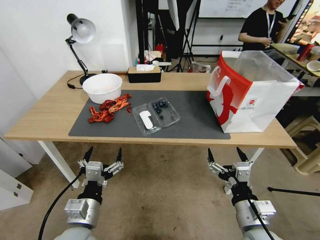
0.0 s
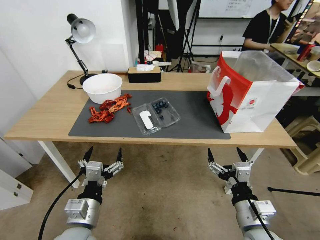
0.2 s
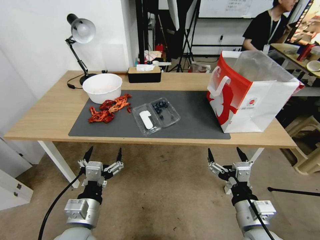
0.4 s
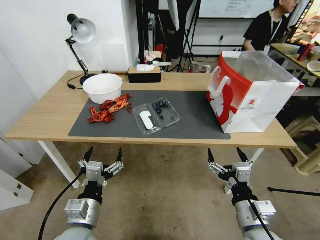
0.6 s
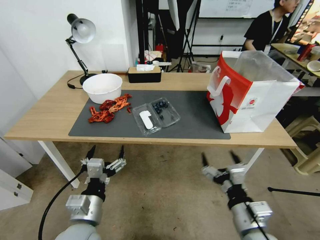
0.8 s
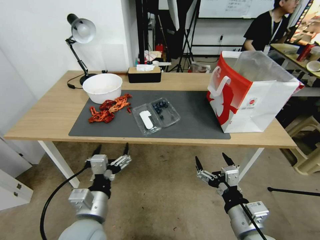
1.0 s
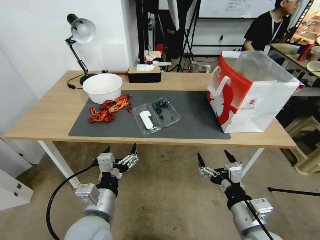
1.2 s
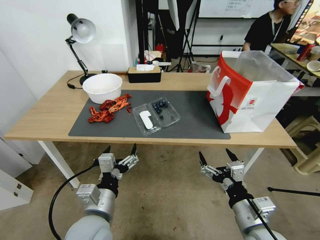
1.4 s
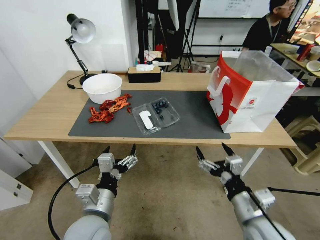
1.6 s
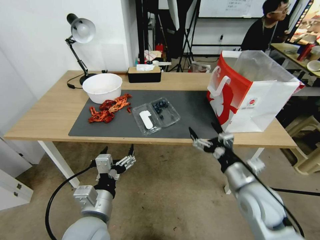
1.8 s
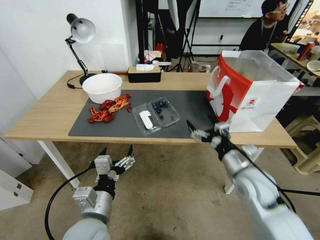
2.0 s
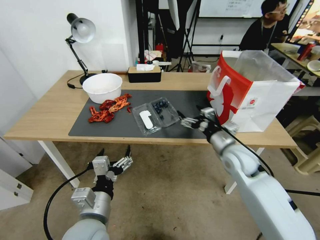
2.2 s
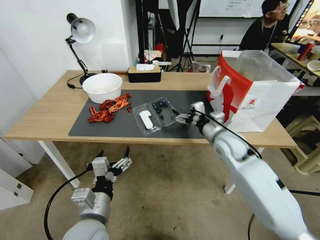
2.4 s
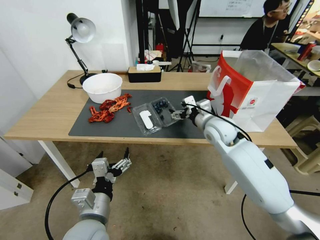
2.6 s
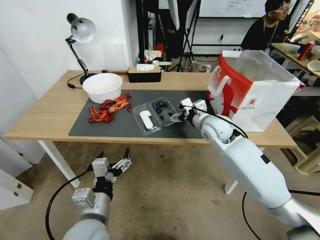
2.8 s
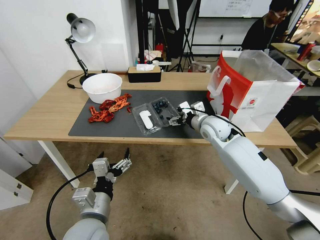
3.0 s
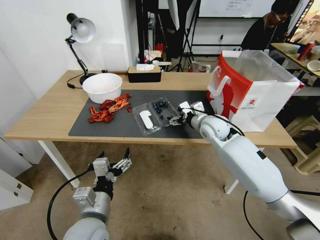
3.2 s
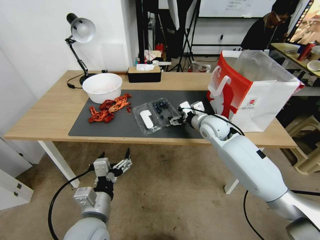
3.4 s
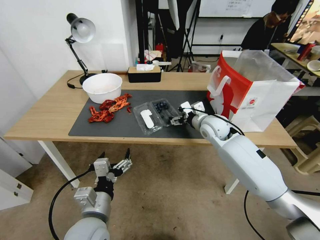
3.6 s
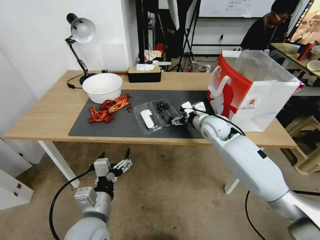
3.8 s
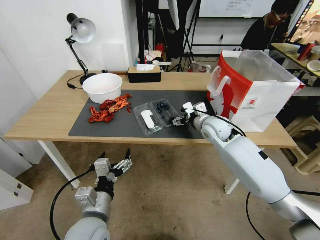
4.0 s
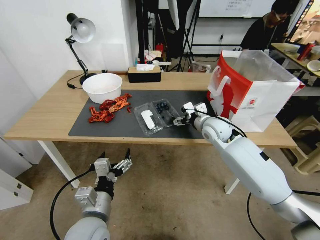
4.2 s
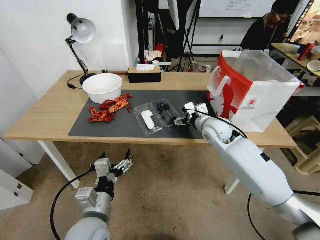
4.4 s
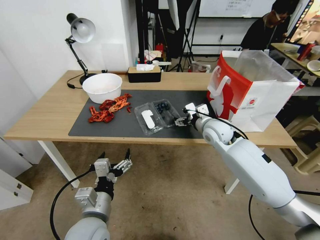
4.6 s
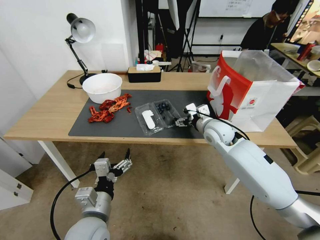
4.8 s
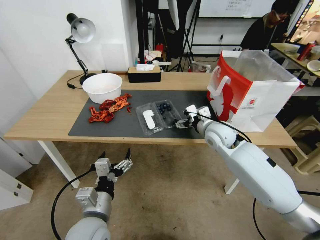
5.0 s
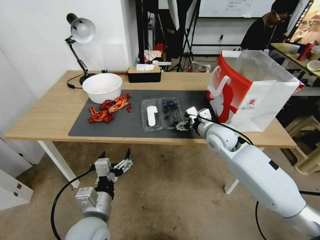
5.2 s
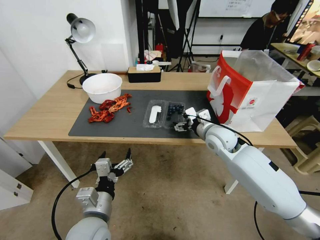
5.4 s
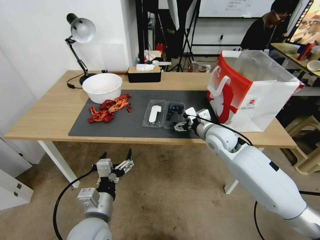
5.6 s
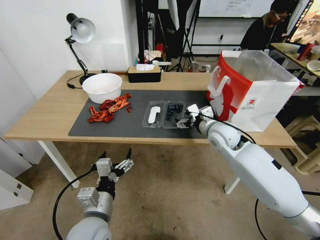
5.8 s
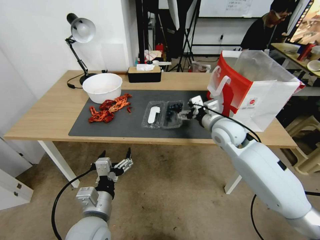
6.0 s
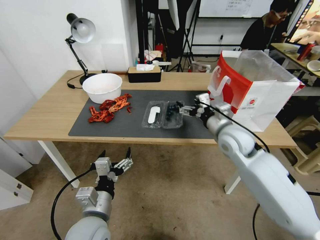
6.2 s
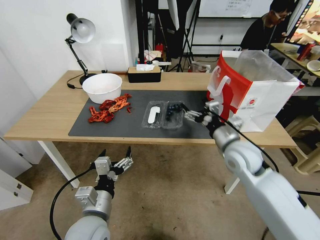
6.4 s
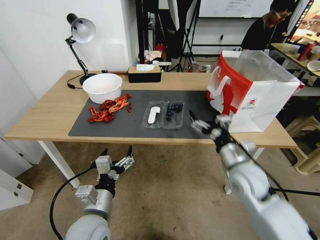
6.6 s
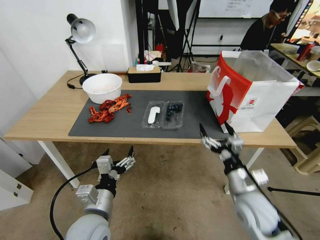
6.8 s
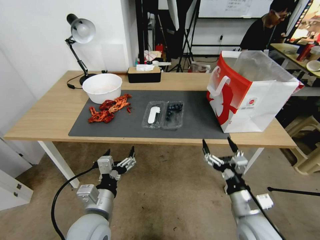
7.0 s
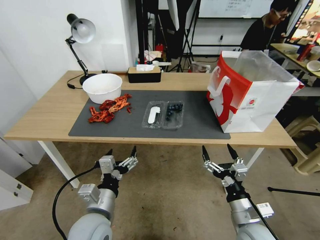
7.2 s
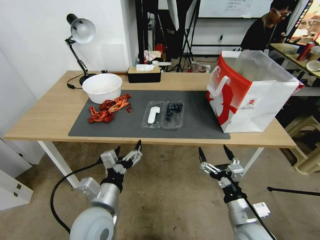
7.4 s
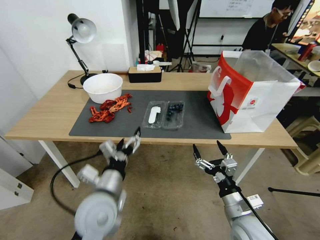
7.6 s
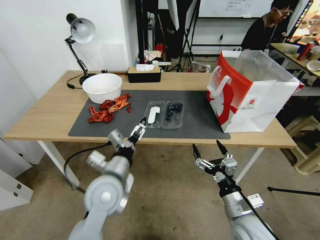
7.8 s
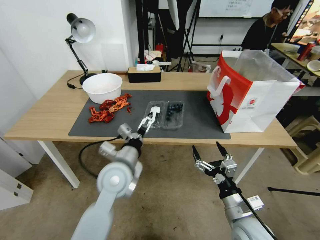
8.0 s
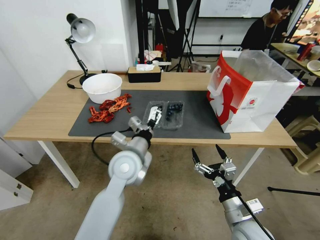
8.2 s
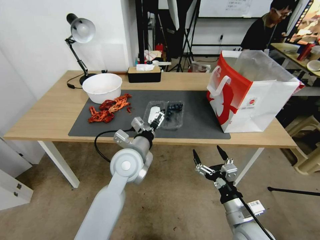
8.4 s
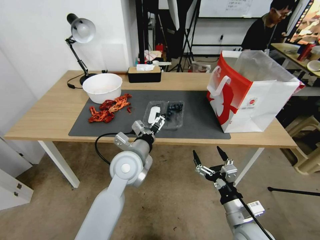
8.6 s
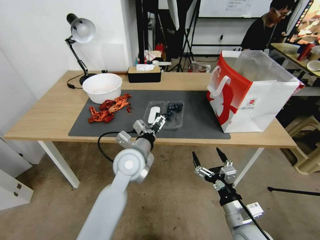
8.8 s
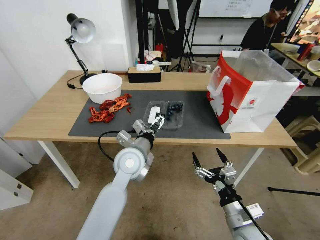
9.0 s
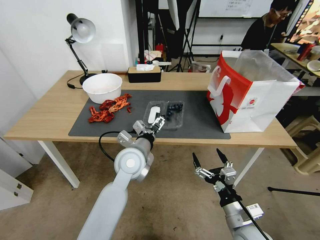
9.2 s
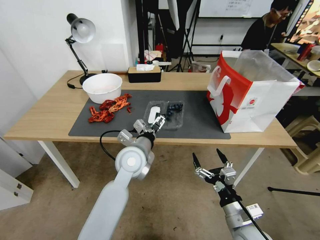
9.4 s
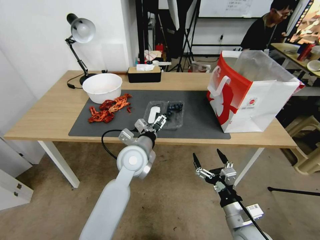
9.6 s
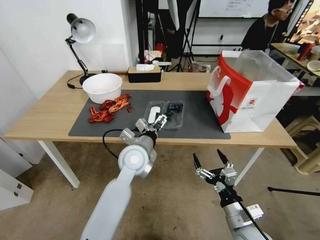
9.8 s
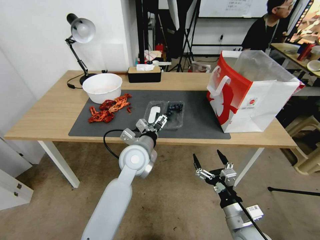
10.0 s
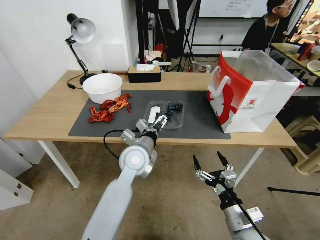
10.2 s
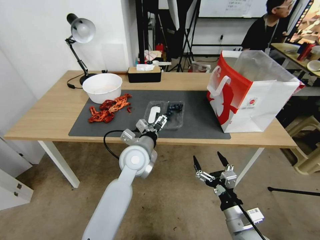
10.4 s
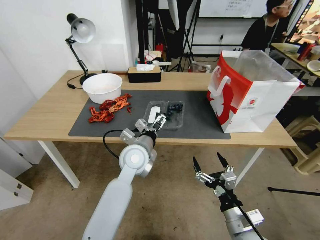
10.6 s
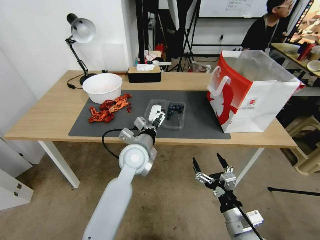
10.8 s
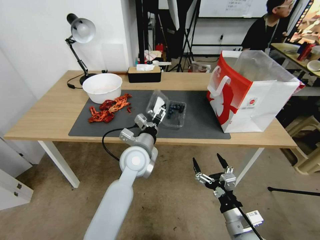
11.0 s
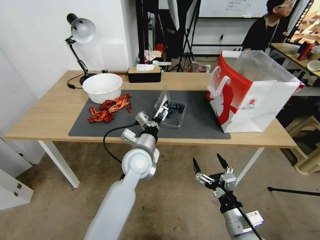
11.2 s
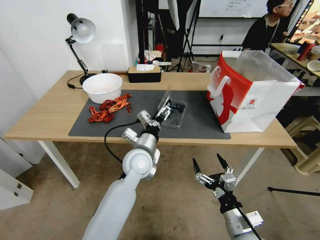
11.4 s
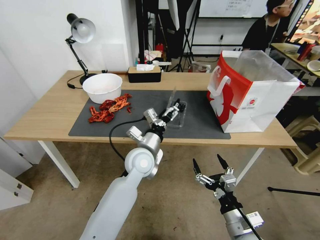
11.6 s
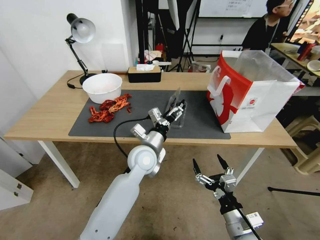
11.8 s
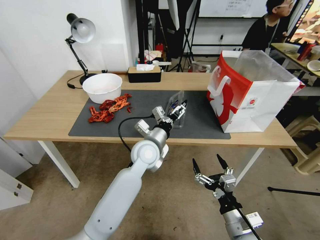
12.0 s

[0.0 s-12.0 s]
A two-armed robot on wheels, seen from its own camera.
Task of the whole recording: Close the takeout container lid, then place the container into the takeout bag.
1.6 to 3.0 s: The right gripper heads forward, covering some 30 cm.
3.0 to 4.4 s: The grippers make only small movements.
4.4 to 6.0 s: The right gripper changes place by about 5 cm.
6.0 to 7.6 s: The left gripper goes approximately 5 cm forward. The right gripper is displaced backward and downward by approximately 30 cm.
7.6 to 9.0 s: The left gripper is displaced forward and to the right by about 15 cm.
9.0 to 10.4 s: The grippers stay close to where they were, moving slightly.

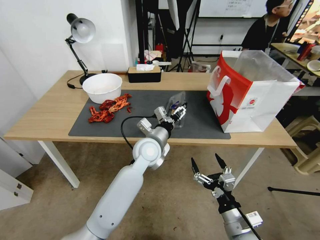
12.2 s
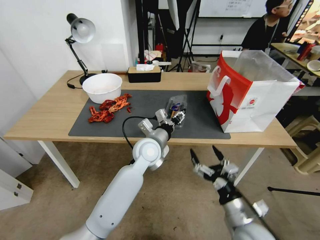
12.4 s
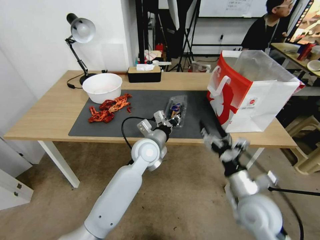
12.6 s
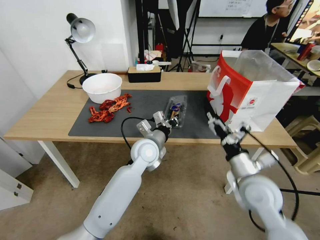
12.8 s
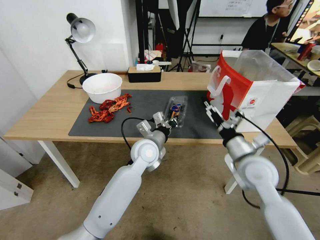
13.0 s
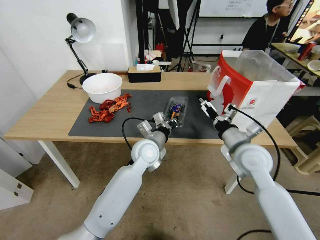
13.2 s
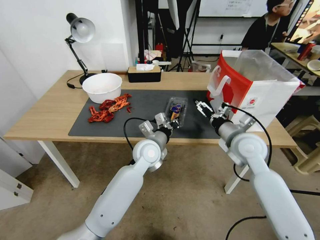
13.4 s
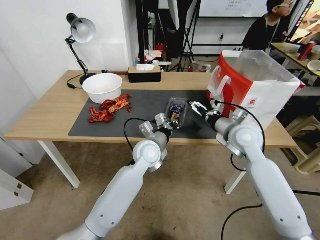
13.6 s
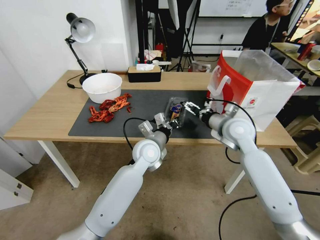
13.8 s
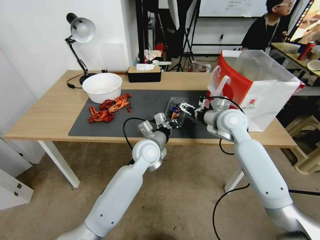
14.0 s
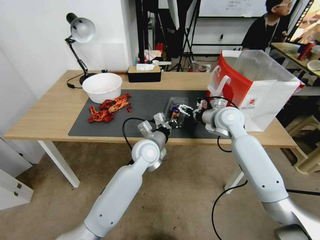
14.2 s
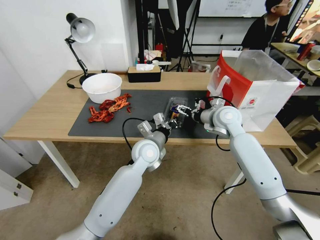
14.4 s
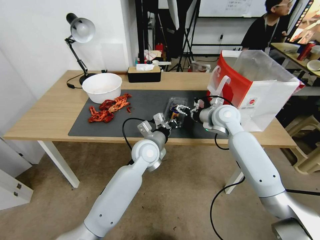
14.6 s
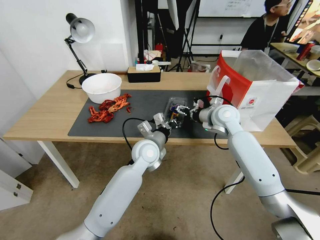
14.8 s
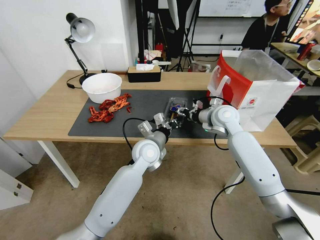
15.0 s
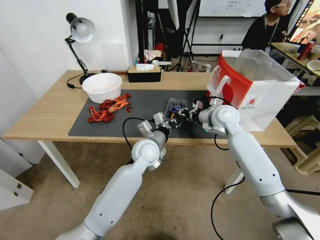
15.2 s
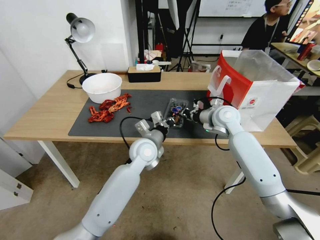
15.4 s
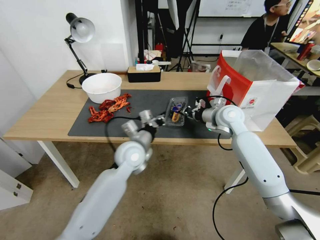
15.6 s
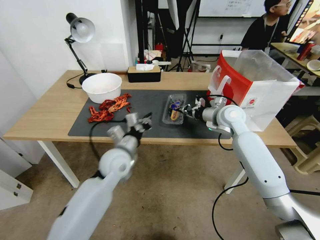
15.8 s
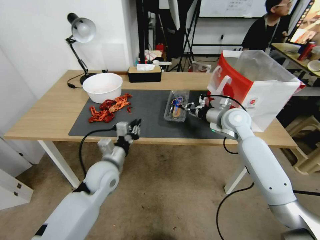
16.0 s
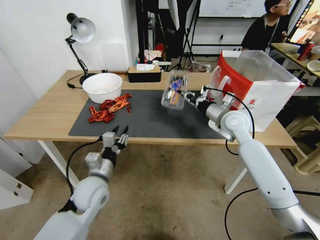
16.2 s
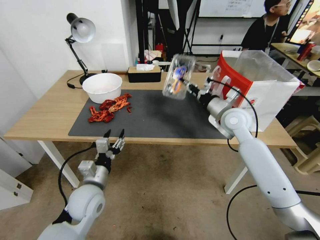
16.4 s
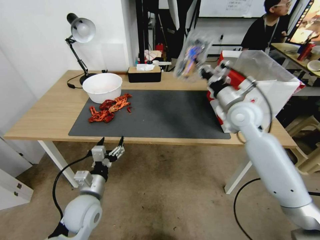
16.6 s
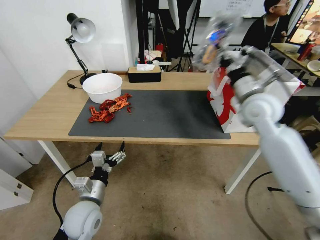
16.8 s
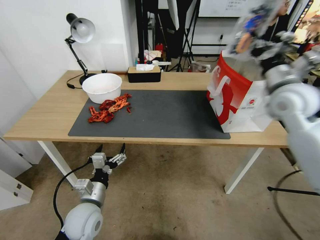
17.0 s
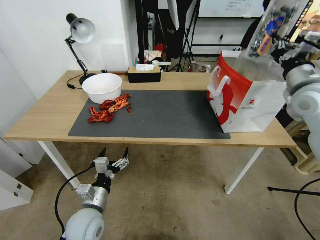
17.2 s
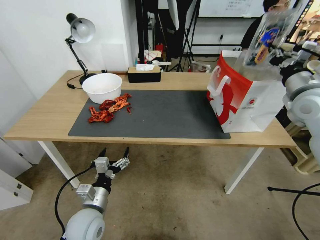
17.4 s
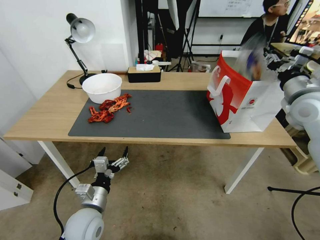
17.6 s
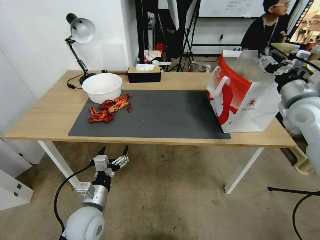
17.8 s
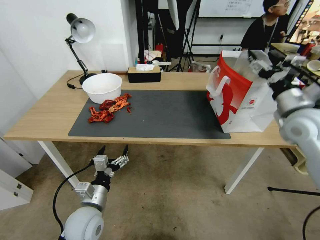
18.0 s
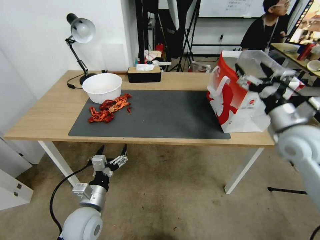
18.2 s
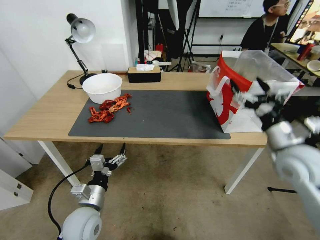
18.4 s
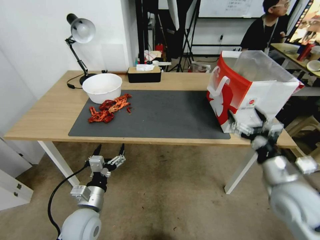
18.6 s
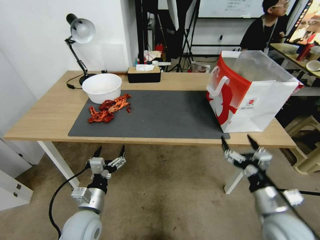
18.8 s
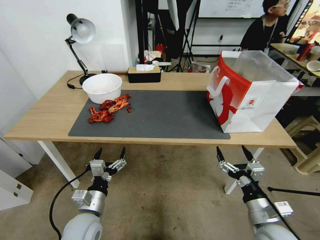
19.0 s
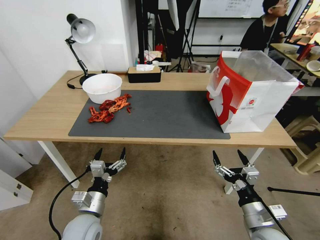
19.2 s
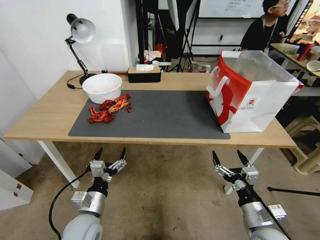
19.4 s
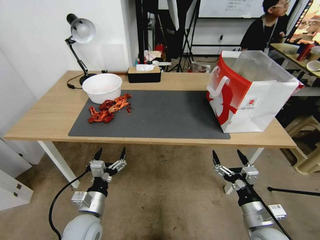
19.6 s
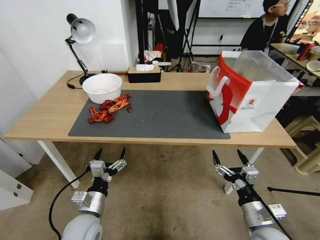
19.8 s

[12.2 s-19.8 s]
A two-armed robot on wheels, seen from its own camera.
Task of the whole recording: Close the takeout container lid, then place the container into the takeout bag.
12.2 to 13.8 s: The left gripper closes its fingers. The right gripper travels forward and upward by about 35 cm.
13.8 to 15.2 s: The right gripper shifts roughly 5 cm forward, and closes up.
15.2 to 16.8 s: The right gripper travels upward, backward and to the right by some 15 cm; the left gripper heads backward, to the left and downward, covering about 25 cm, and opens up.
16.8 to 18.2 s: The right gripper is displaced backward and to the right by roughly 10 cm, and opens its fingers.
18.2 to 19.8 s: The right gripper moves downward and backward, approximately 25 cm.

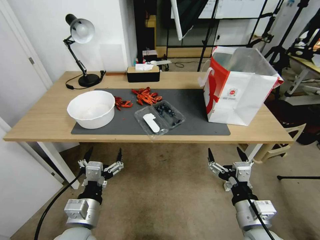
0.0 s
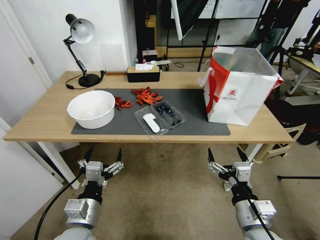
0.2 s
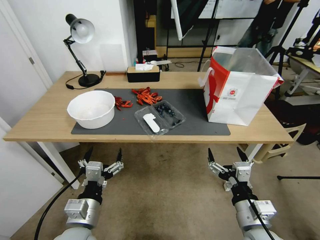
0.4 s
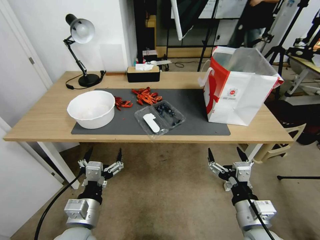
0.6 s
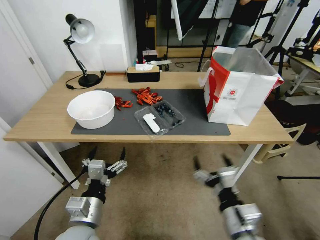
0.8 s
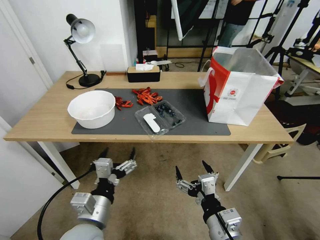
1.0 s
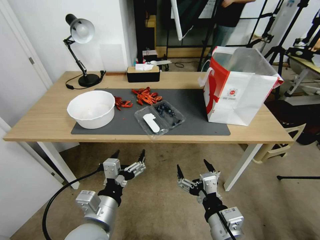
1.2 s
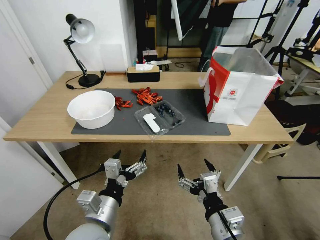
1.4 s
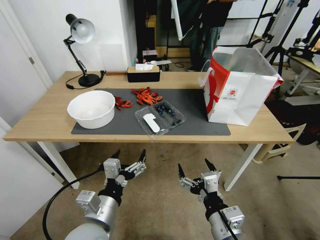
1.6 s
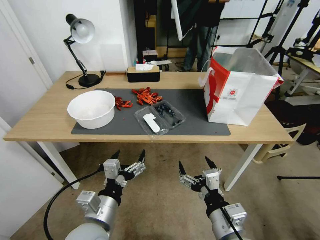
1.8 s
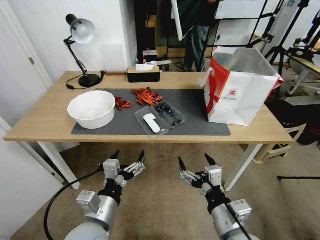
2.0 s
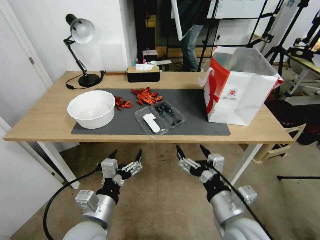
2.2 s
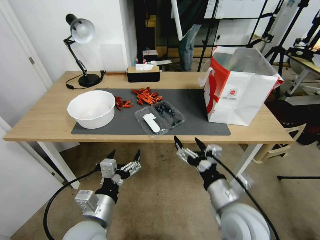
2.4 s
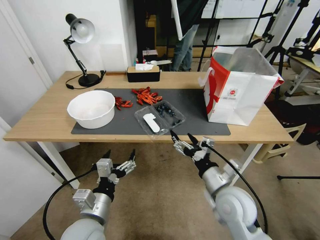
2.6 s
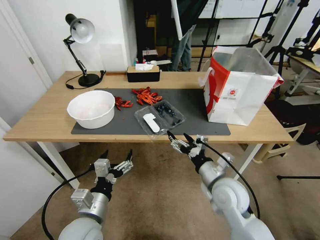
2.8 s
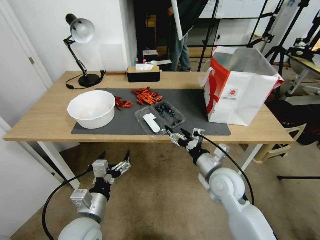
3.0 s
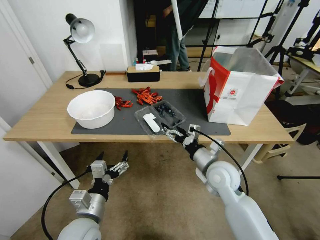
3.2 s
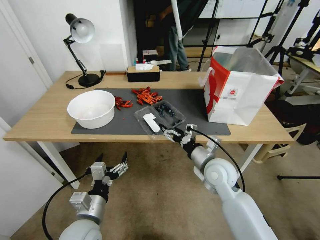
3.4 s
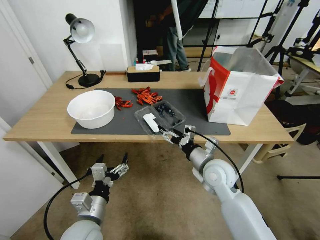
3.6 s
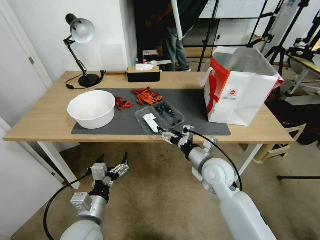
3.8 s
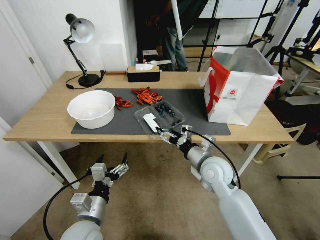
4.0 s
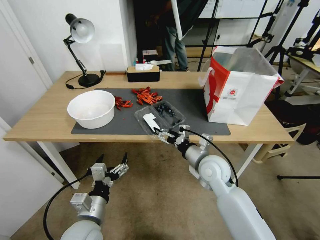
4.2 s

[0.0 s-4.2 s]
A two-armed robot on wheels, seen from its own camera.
Task of the whole recording: Close the takeout container lid, then place the container into the takeout bag.
1.4 to 2.8 s: The right gripper moves forward, approximately 15 cm.
2.8 to 4.2 s: The right gripper is displaced forward by roughly 10 cm.
